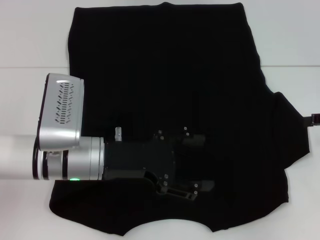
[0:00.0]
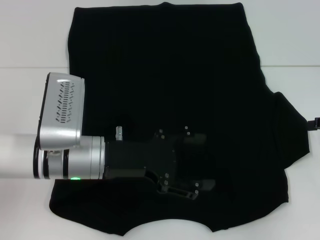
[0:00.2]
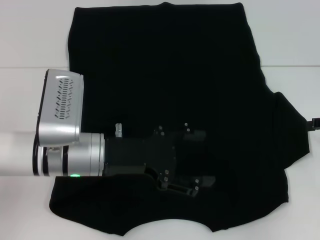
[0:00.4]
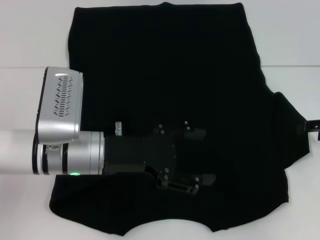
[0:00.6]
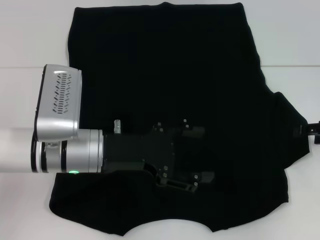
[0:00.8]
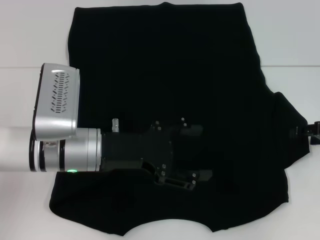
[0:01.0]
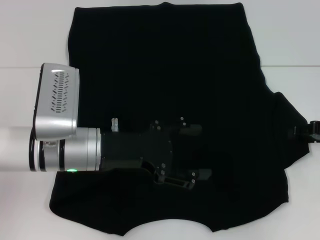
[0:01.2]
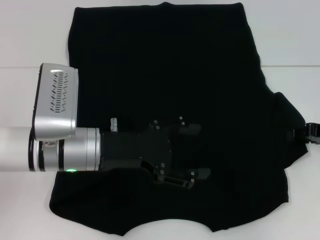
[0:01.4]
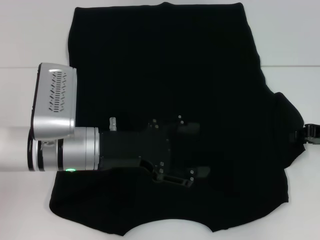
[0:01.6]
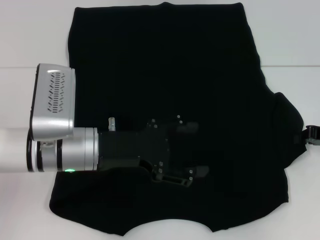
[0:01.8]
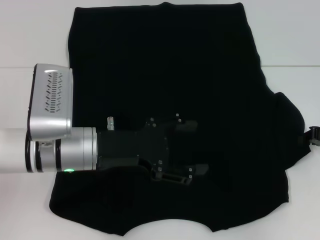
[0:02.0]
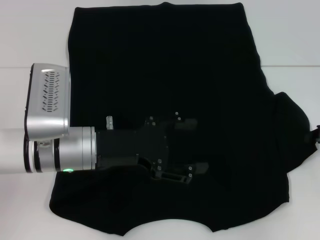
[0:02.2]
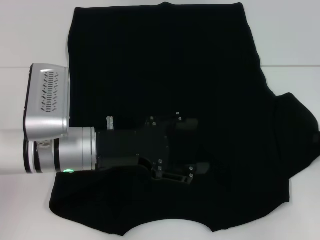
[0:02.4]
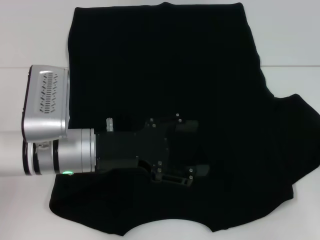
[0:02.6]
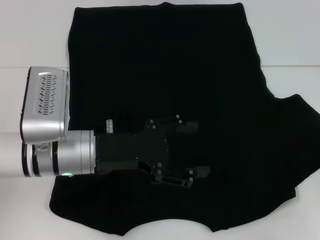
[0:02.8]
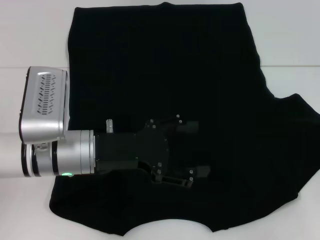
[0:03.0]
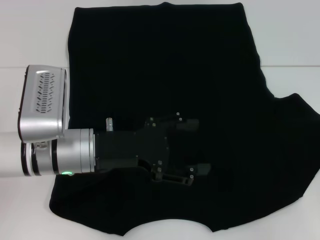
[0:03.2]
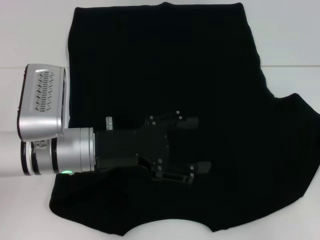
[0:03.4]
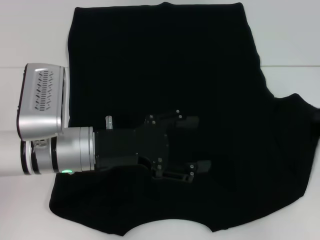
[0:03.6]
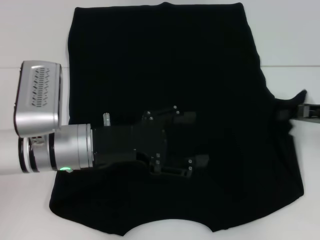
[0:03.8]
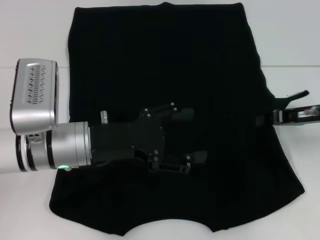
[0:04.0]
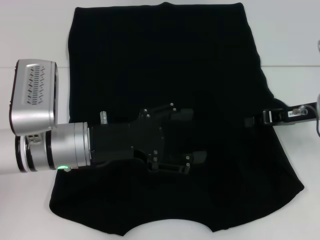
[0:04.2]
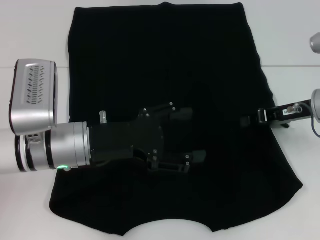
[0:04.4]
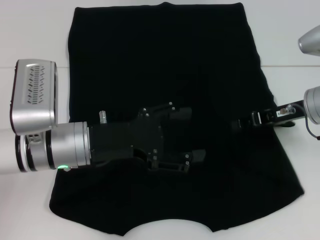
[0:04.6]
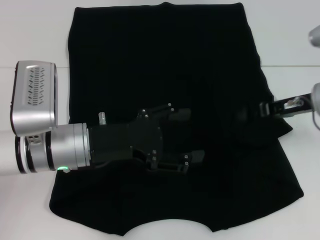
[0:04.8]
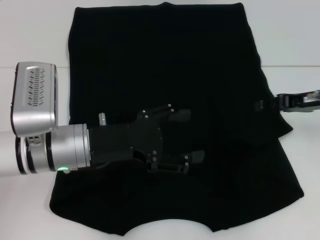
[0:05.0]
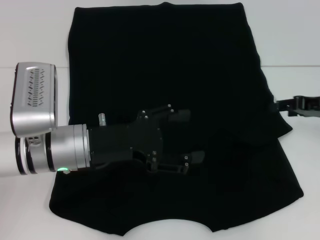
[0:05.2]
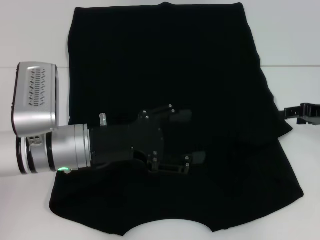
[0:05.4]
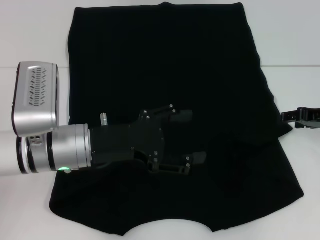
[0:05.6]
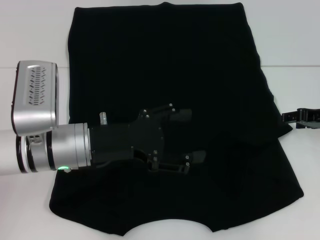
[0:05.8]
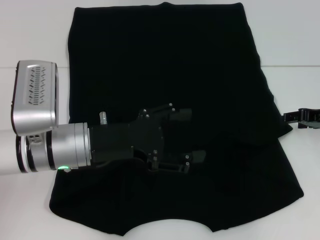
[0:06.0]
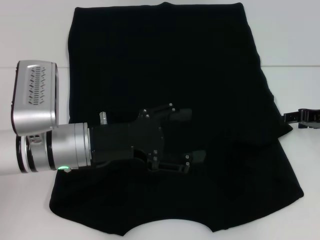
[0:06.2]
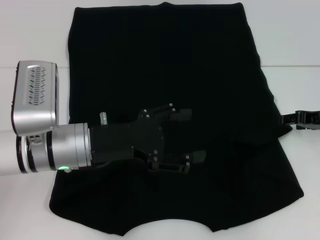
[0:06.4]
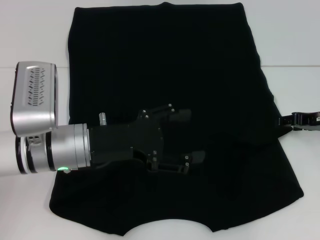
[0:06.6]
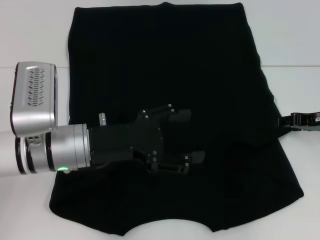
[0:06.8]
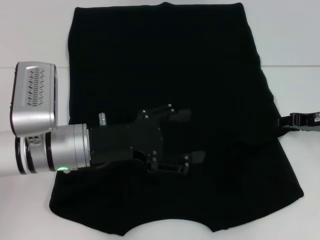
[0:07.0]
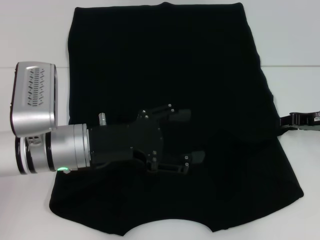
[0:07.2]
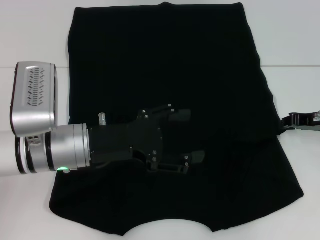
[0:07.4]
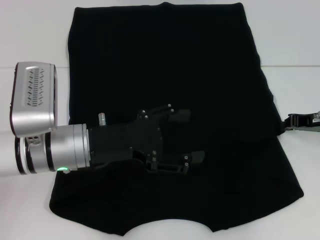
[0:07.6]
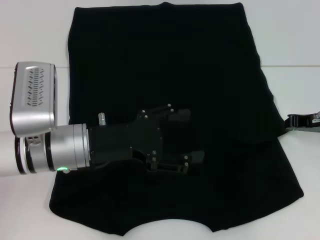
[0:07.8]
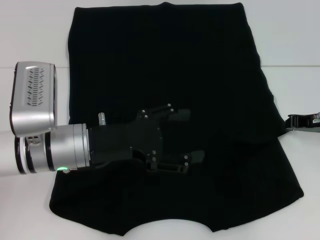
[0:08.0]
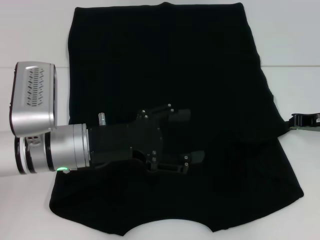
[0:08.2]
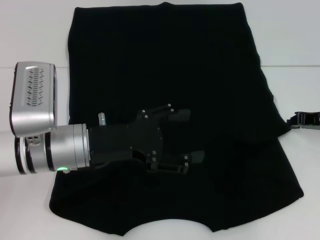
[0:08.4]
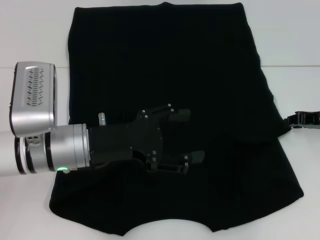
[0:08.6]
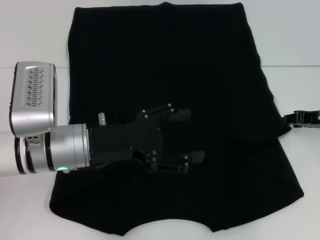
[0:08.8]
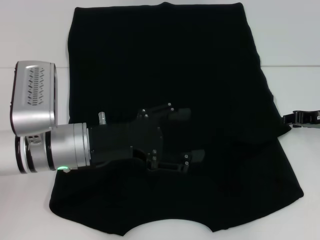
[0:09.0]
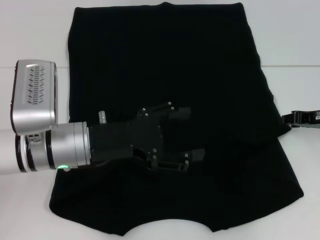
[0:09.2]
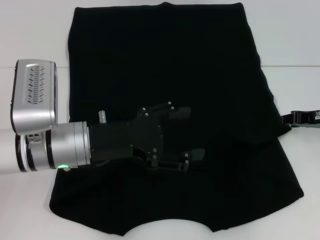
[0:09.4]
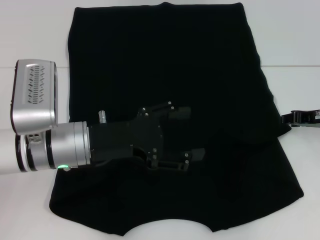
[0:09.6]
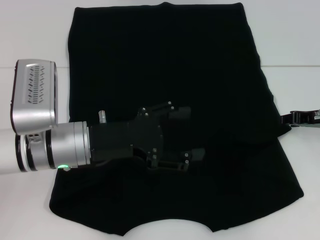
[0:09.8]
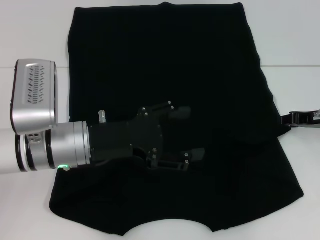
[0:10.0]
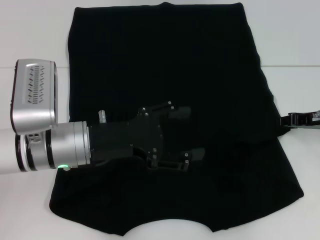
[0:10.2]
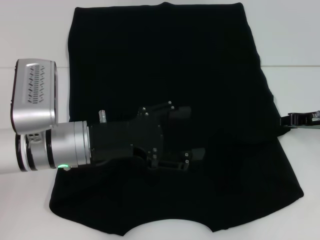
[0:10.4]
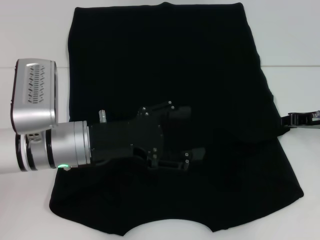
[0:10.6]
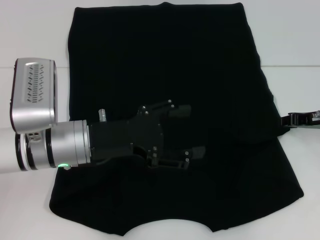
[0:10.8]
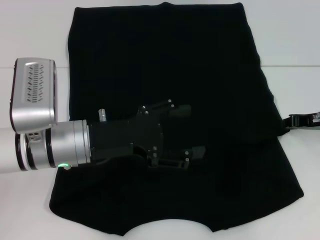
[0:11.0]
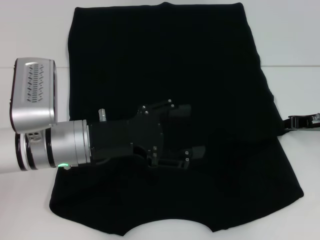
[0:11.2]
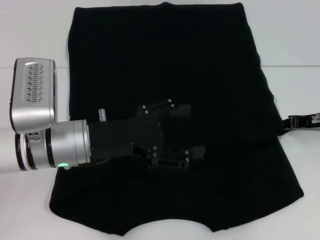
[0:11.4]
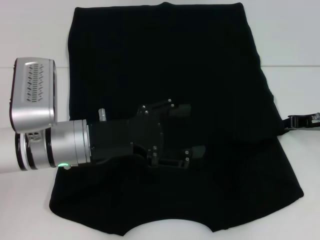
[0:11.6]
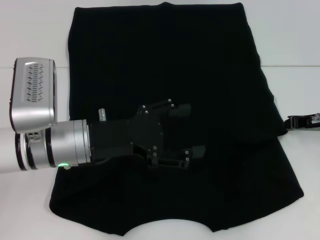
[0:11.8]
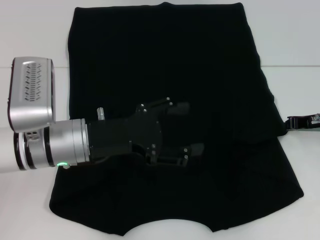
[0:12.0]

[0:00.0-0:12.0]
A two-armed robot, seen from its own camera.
0:00.0 to 0:01.6: The right gripper moves roughly 5 cm, and closes its fingers.
0:01.6 to 0:03.0: The right gripper shifts roughly 5 cm to the right, and closes.
0:03.0 to 0:04.4: The right gripper moves to the left, approximately 15 cm.
0:04.4 to 0:06.0: The right gripper shifts approximately 5 cm to the right, and opens.
0:06.0 to 0:07.6: The right gripper closes its fingers.
0:07.6 to 0:10.4: Neither gripper changes place.
0:10.4 to 0:12.0: The right gripper closes.

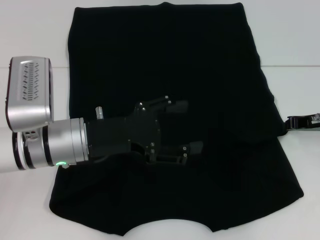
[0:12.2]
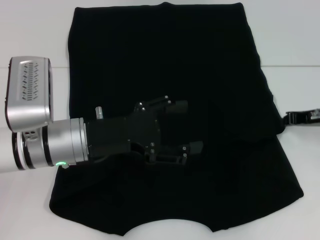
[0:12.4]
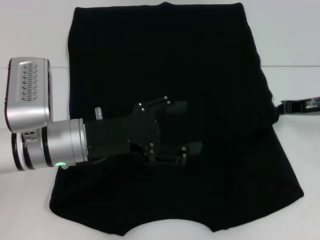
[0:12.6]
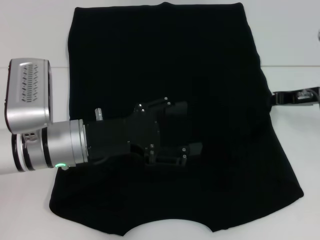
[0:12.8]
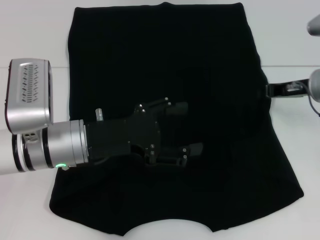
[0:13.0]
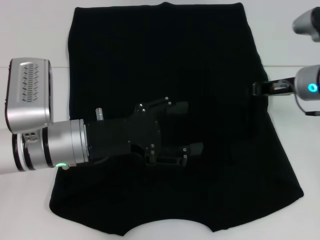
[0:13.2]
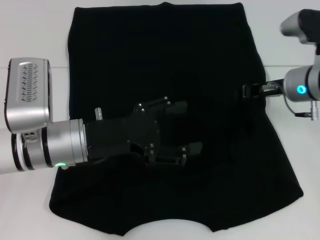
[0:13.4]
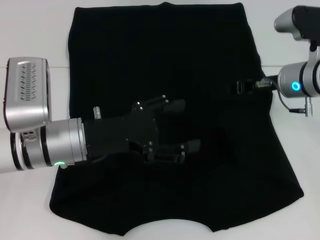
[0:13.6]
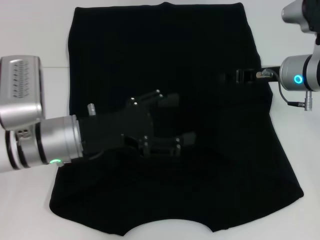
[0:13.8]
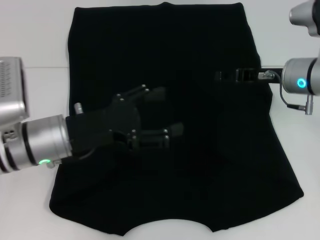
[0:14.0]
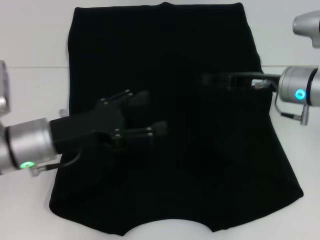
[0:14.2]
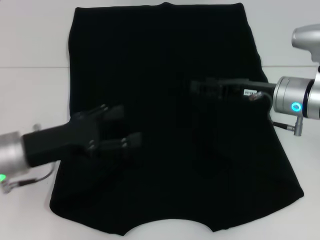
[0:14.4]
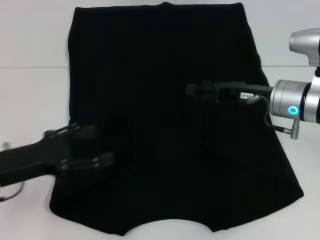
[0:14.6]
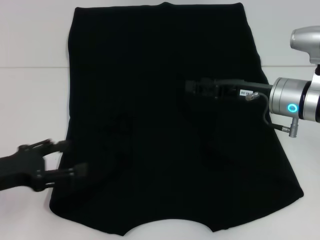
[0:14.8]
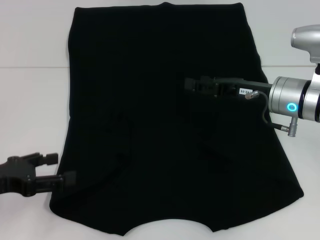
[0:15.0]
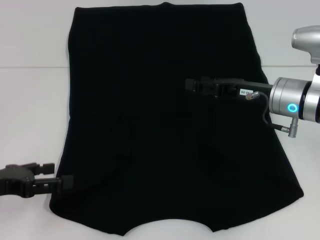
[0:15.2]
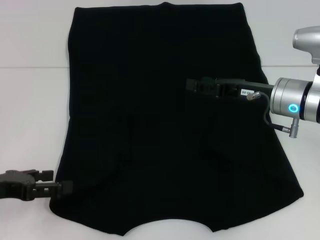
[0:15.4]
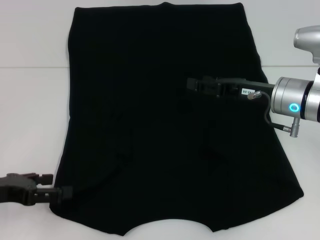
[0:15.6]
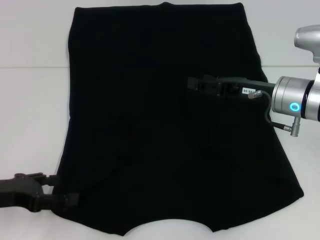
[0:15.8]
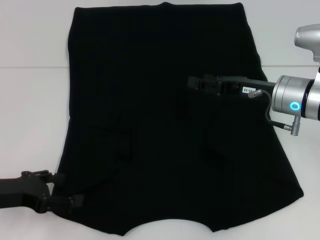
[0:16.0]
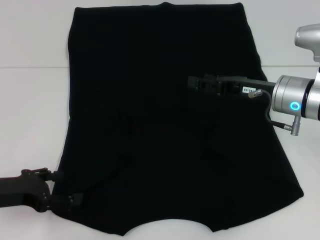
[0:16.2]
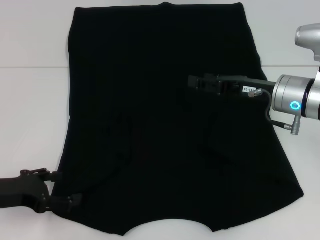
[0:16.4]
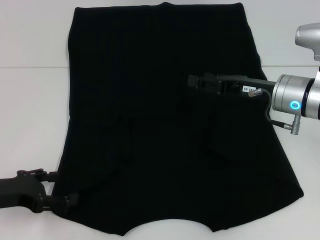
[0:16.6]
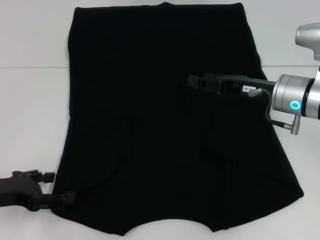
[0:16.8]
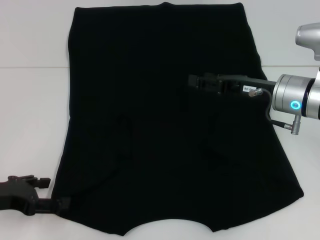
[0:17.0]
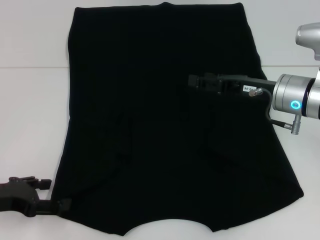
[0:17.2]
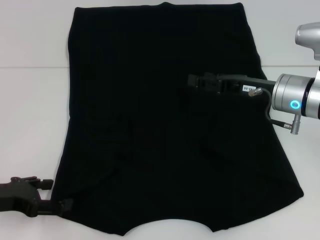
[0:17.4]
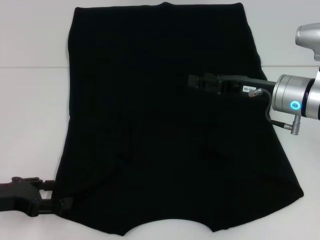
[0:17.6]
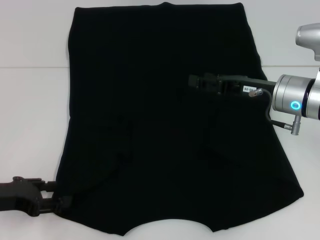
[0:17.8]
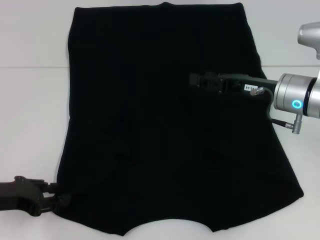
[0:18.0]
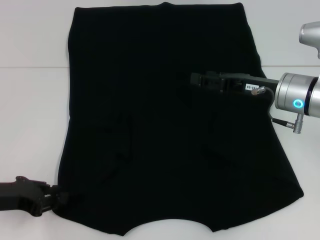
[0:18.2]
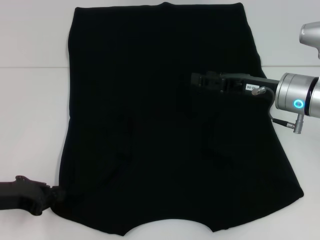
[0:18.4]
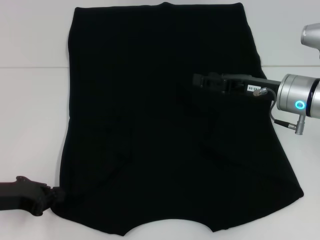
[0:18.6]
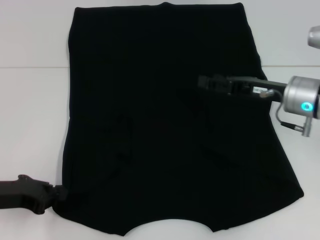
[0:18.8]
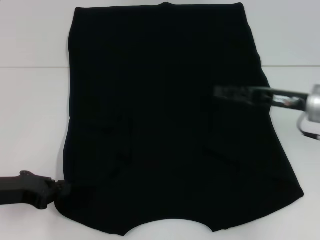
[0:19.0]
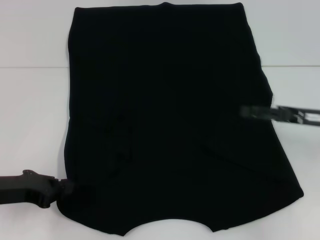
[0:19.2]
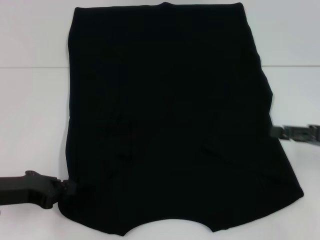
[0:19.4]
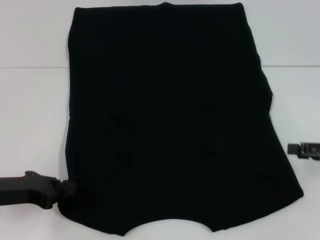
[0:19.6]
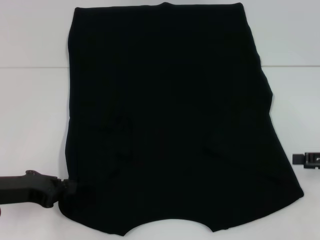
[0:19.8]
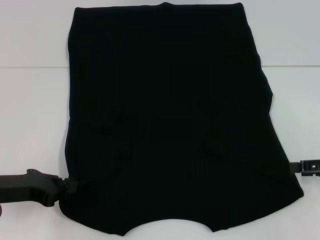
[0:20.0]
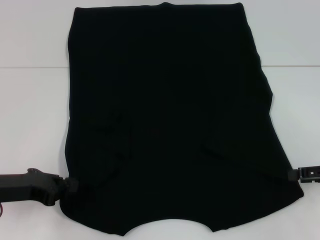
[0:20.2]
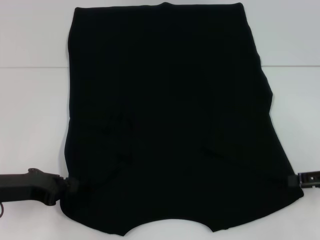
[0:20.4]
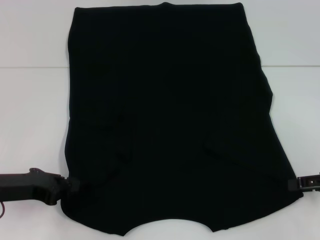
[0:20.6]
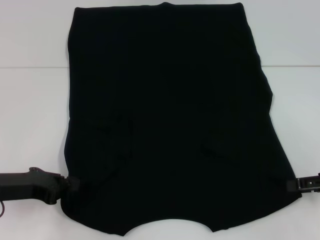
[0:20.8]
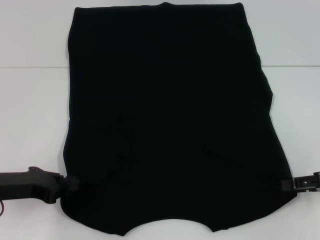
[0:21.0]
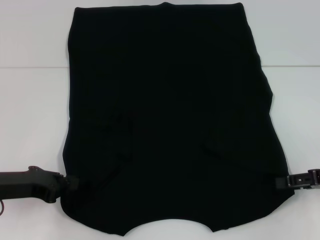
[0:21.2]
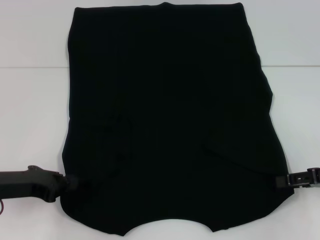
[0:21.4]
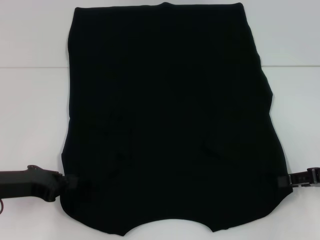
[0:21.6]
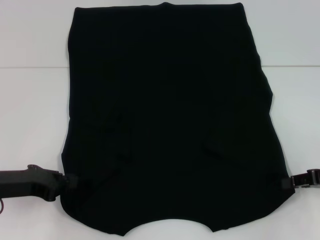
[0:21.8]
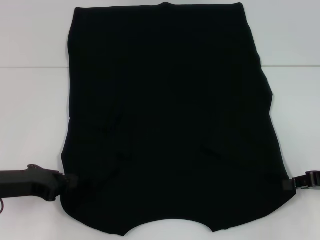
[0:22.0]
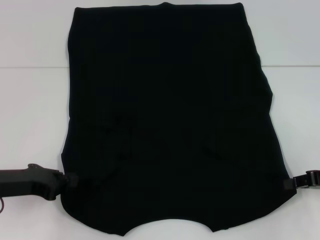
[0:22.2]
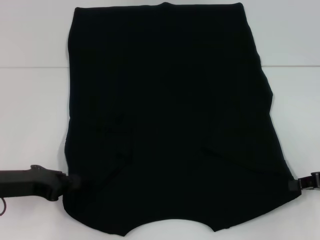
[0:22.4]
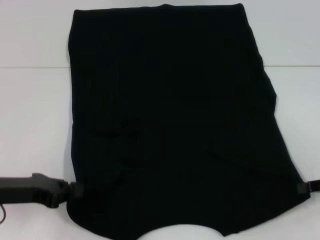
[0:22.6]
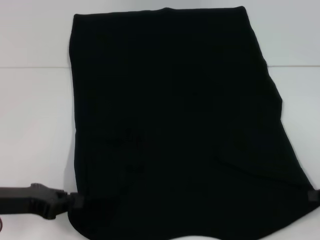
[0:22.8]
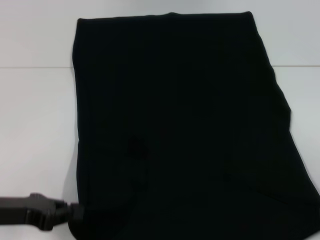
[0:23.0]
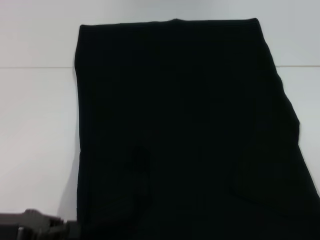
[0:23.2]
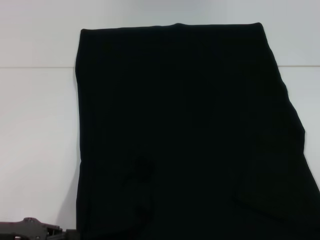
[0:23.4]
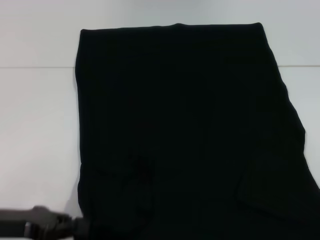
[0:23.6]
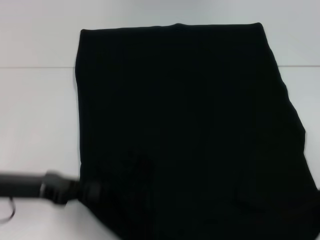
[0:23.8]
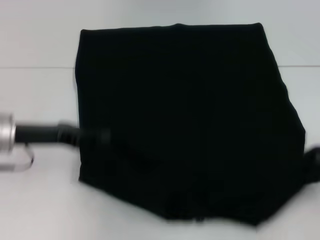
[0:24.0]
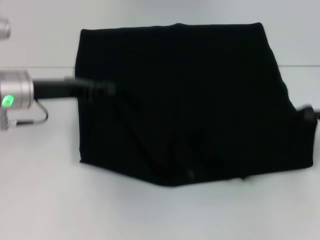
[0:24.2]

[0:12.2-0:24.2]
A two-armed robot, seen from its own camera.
Step, 0:14.2 to 0:22.2: Grab the bottom left corner with your left hand.
Step, 0:14.2 to 0:22.2: Grab the bottom right corner with your right hand.
0:12.2 to 0:13.8: The right gripper goes some 10 cm to the left.
0:13.8 to 0:15.2: The right gripper changes place by roughly 5 cm, and opens up; the left gripper goes approximately 15 cm to the left and backward.
0:15.2 to 0:16.6: The grippers move only a little.
0:16.6 to 0:18.2: The left gripper closes its fingers.
0:18.2 to 0:19.8: The right gripper shifts some 20 cm to the right and backward; the left gripper closes its fingers.
0:19.8 to 0:21.2: The grippers stay close to where they were, moving slightly.
0:21.2 to 0:22.6: The right gripper closes up.
0:22.6 to 0:24.2: The left gripper is displaced forward and upward by approximately 15 cm. The right gripper reaches about 10 cm backward, then returns.
